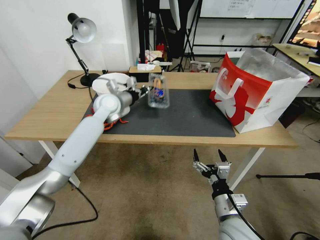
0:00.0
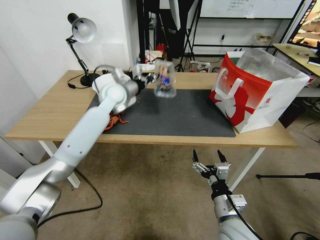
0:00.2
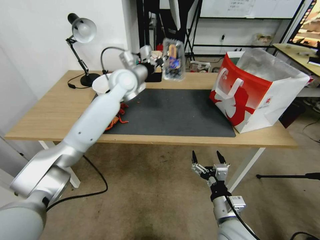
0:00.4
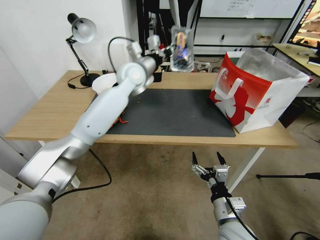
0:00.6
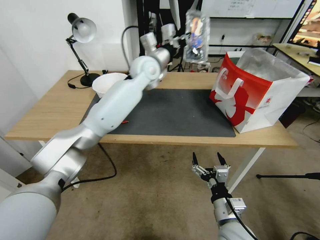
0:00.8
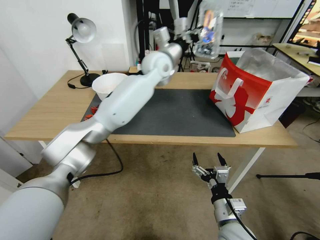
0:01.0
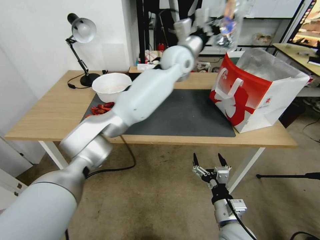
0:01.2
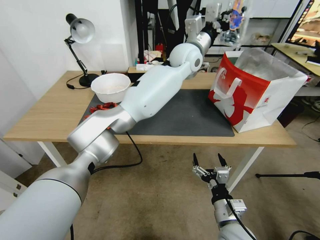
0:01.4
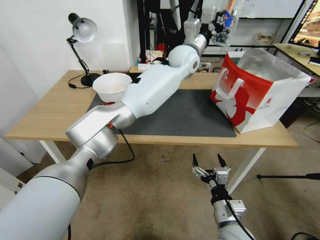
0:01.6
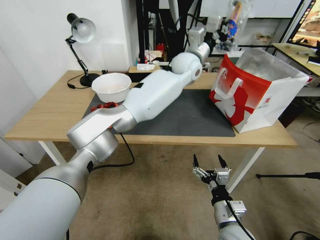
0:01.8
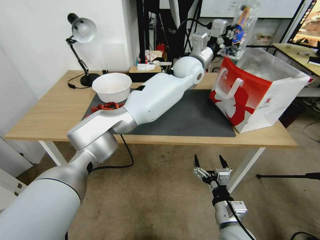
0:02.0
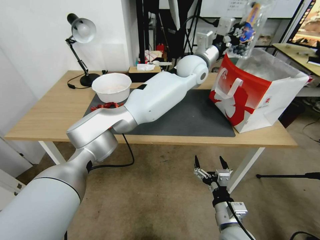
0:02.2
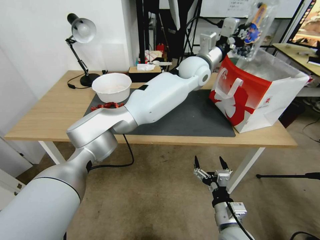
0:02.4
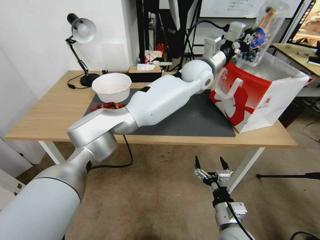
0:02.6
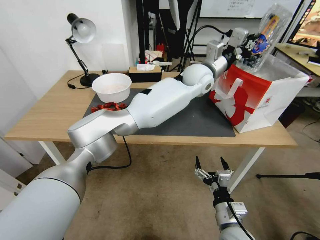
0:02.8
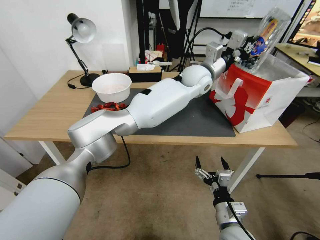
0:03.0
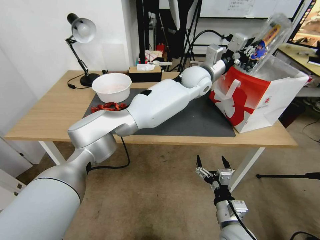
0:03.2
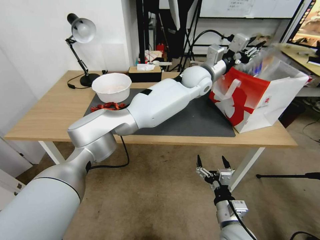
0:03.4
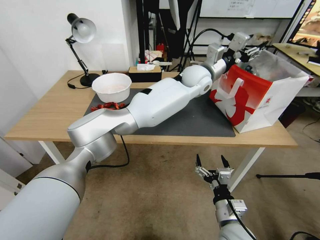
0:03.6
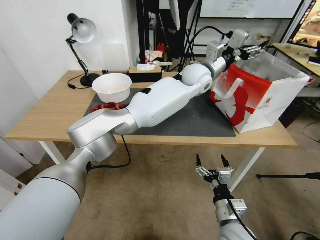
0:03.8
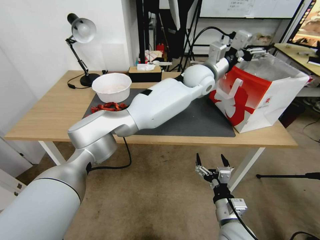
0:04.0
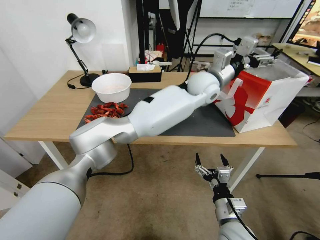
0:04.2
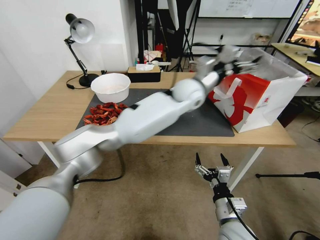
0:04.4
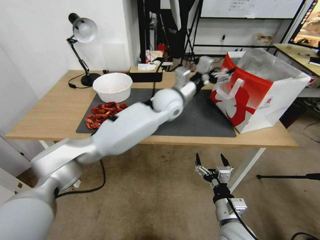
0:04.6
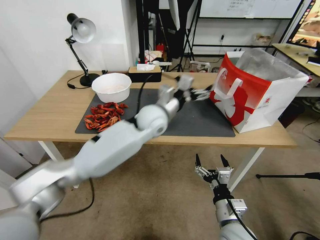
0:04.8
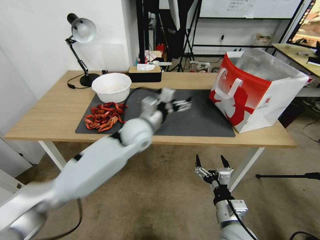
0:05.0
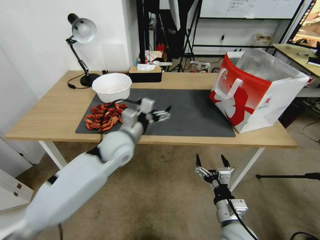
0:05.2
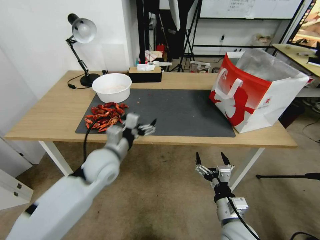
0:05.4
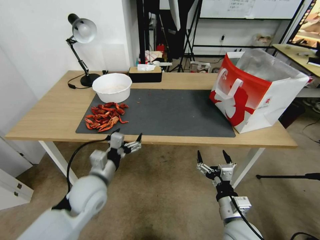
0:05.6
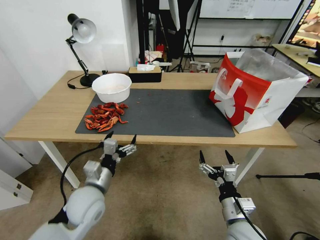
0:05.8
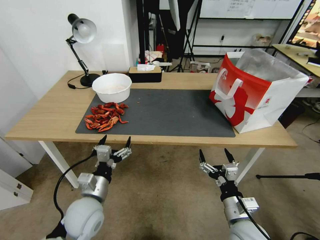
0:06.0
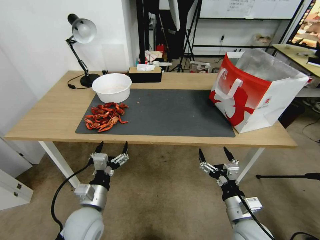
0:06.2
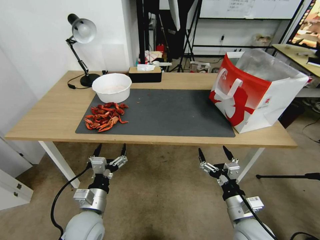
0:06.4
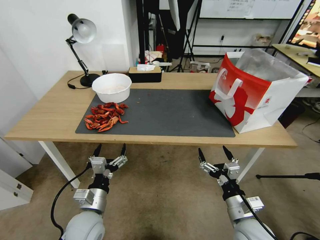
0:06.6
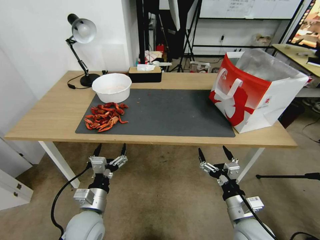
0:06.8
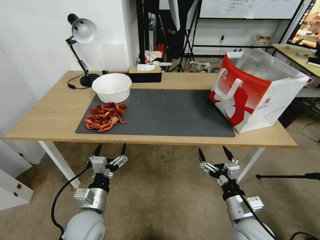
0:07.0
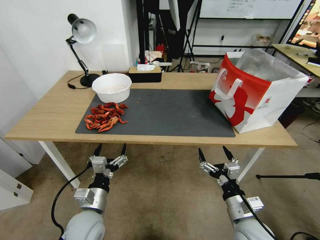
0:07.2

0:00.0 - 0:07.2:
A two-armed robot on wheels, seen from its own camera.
Task of the whole recording: Close the takeout container lid, then place the container into the takeout bag.
0:00.0 - 0:01.4: The left gripper travels to the right and upward by roughly 30 cm.
0:01.4 - 0:02.8: The left gripper is displaced downward by roughly 5 cm.
0:02.8 - 0:04.4: The left gripper moves approximately 5 cm, and opens its fingers.
0:04.4 - 0:05.8: The left gripper goes some 40 cm to the left, backward and downward.
0:05.8 - 0:07.2: The left gripper ends up approximately 5 cm from where it was.
